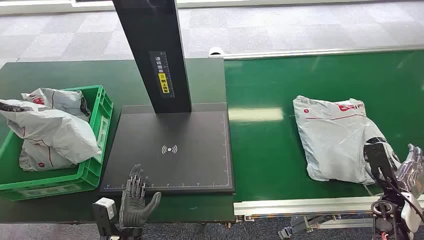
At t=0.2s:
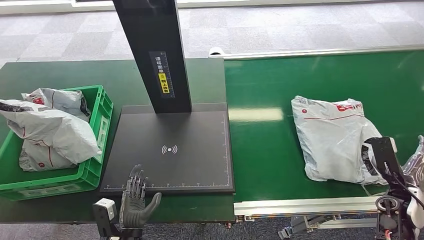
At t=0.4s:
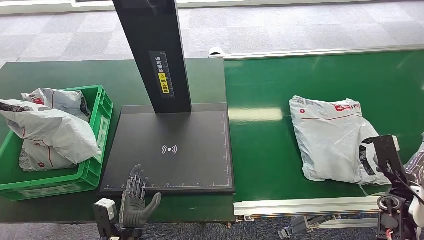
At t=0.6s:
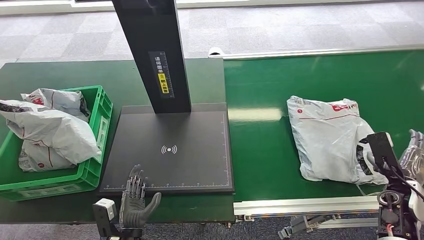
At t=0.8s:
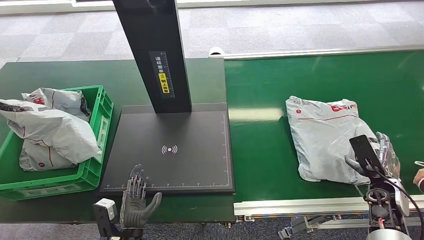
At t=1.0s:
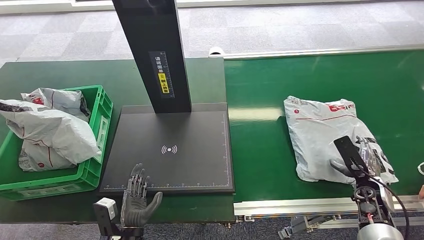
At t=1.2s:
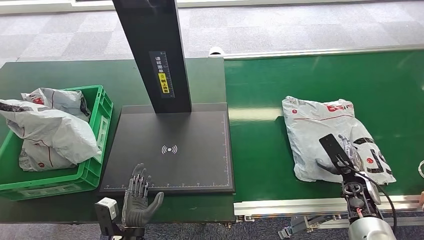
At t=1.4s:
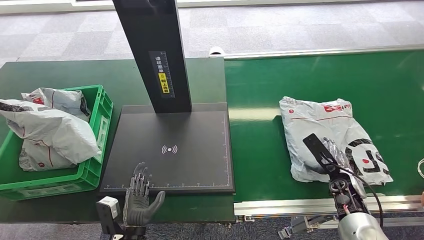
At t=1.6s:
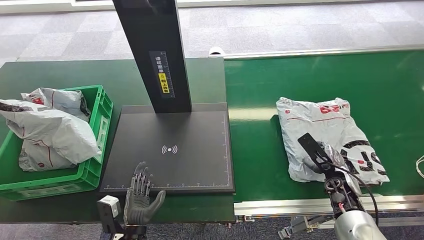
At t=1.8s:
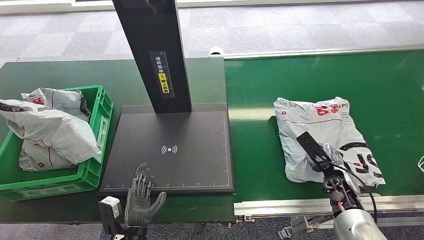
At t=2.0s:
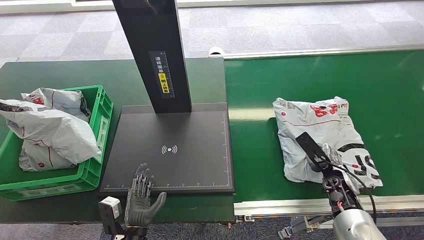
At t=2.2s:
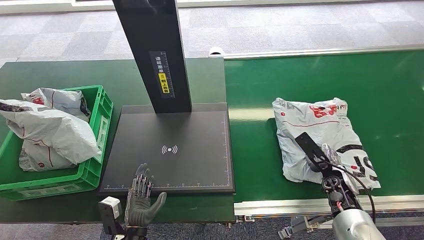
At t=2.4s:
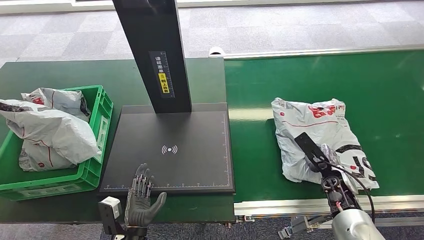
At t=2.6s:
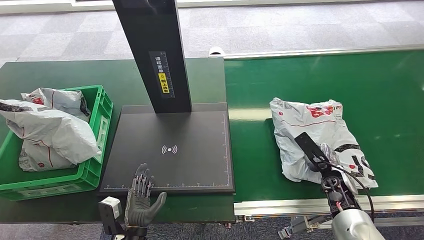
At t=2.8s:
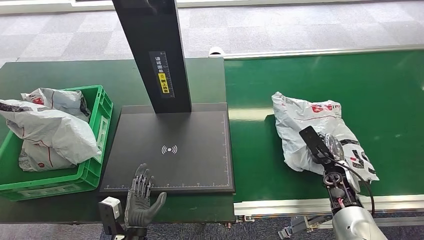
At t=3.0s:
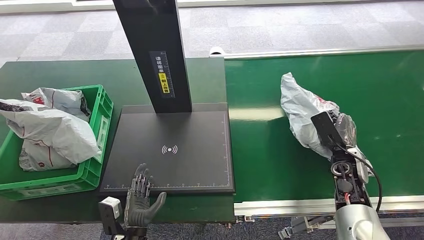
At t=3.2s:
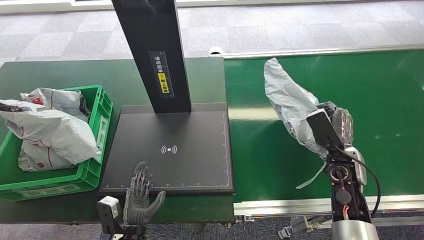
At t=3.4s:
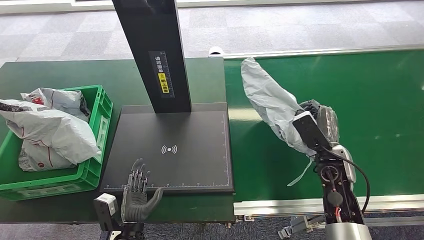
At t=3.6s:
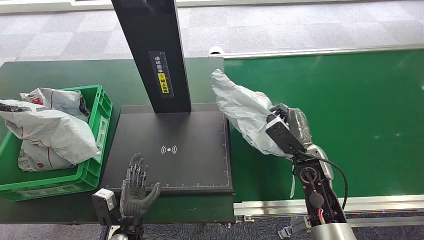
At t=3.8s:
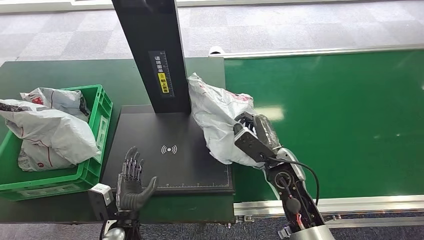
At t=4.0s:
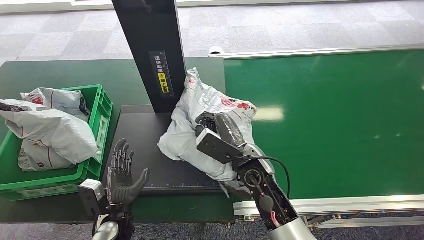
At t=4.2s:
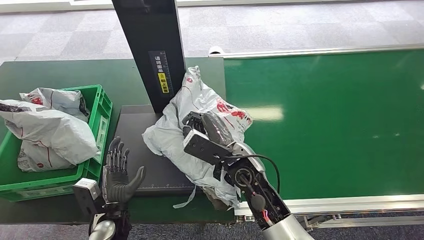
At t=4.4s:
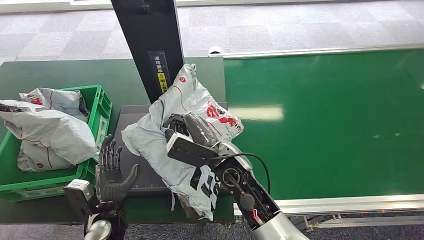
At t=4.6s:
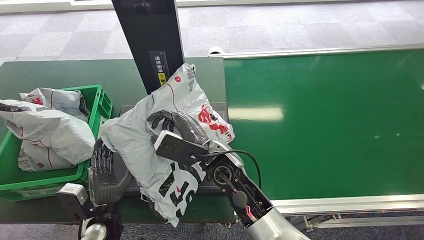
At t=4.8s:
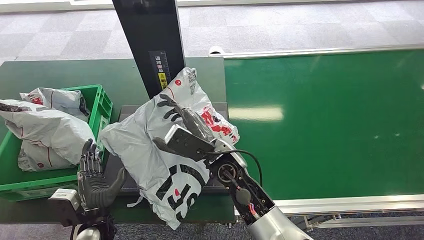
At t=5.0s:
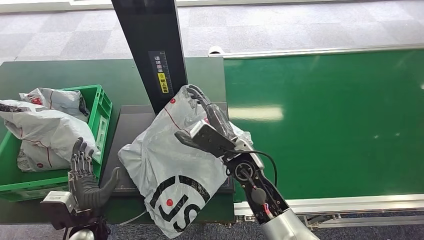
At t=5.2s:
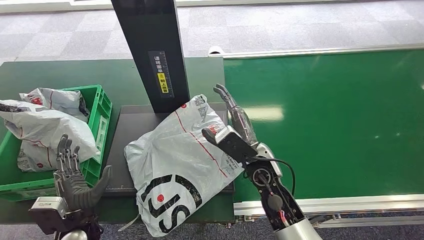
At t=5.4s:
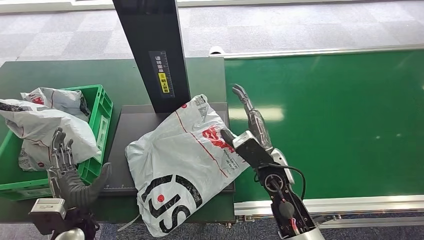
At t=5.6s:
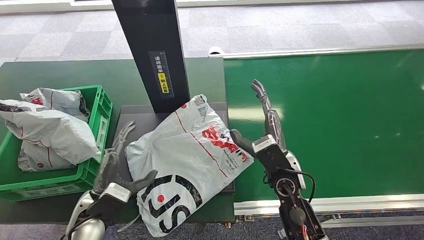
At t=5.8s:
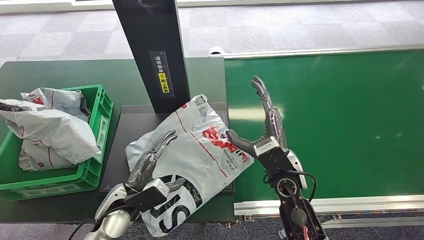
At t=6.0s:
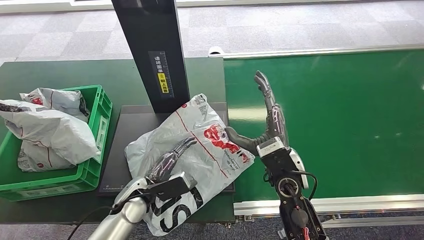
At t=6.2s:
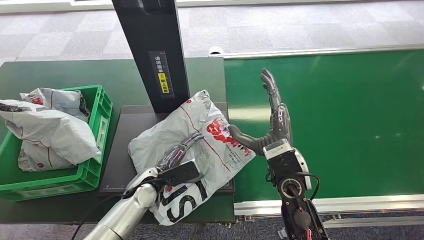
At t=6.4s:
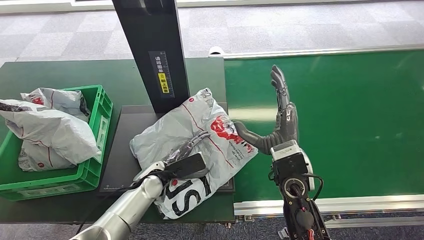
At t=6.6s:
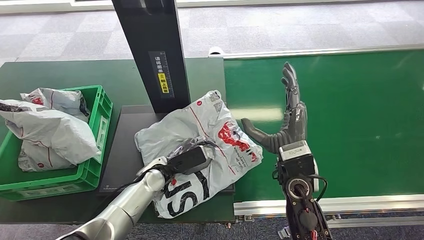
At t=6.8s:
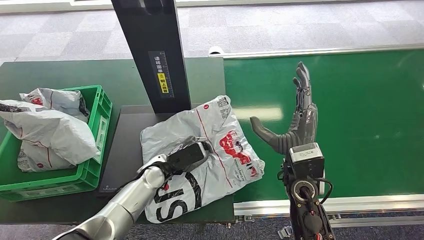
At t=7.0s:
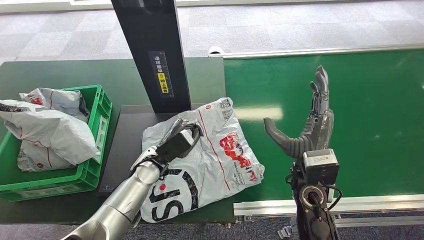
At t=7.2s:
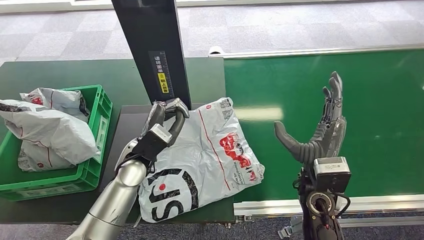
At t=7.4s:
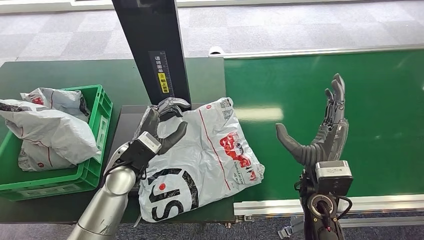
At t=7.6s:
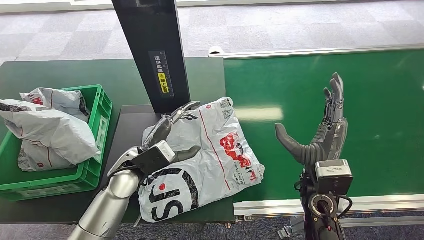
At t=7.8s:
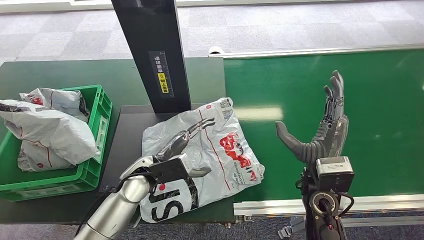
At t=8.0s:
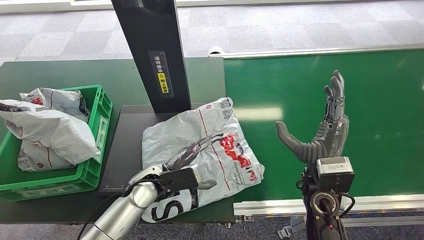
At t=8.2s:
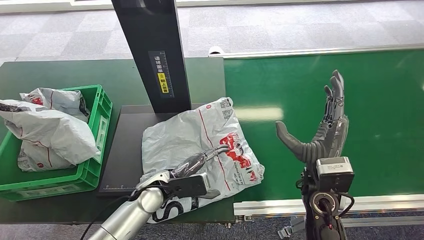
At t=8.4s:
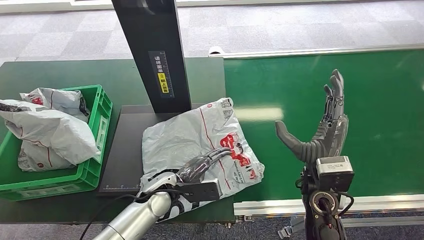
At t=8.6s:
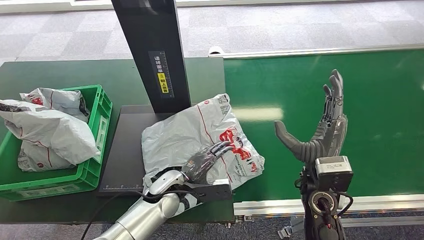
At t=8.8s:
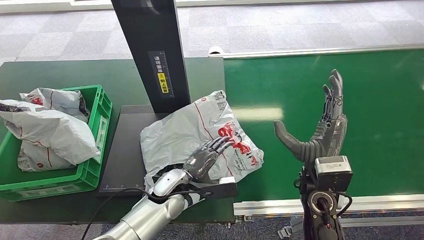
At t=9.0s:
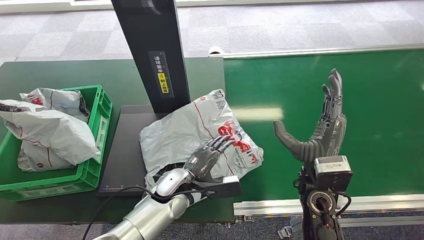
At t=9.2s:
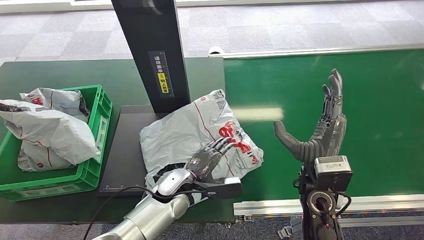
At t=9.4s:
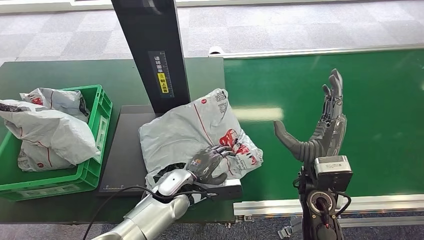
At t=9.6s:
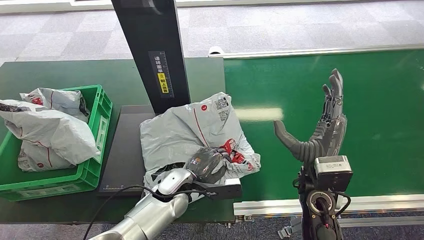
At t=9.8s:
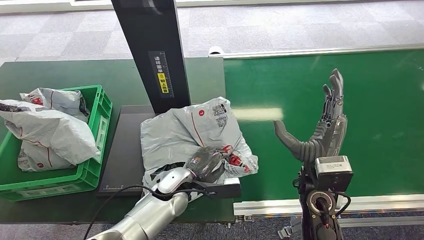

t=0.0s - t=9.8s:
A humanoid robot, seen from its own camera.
Task of the whole recording: Weigh the package on the weighing device and place it in the left basket.
Step, t=0.0s - t=3.2s: Pick up the package from the conveyor belt.
Step, t=3.6s - t=6.4s: Place the package onto the inbound machine.
t=1.4s - t=2.8s: There are only small adjustments of the hands.
t=4.2s - t=5.6s: The left hand goes some 10 cm upward. The right hand travels to the right by about 10 cm.
t=5.6s - t=7.0s: The left hand moves forward and to the right, roughly 15 cm. Meanwhile the right hand shifts by some 5 cm.
t=7.0s - t=8.4s: The left hand travels backward by about 5 cm.

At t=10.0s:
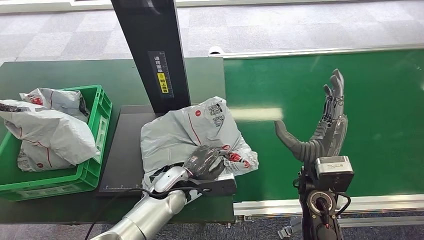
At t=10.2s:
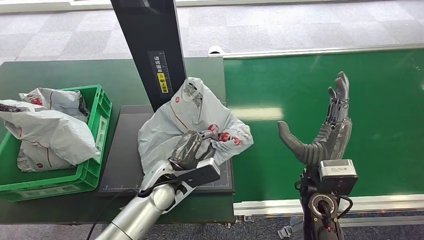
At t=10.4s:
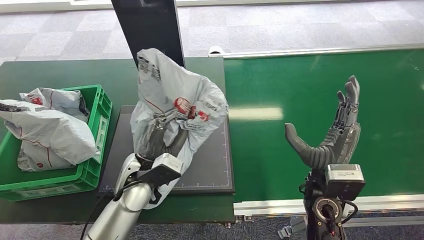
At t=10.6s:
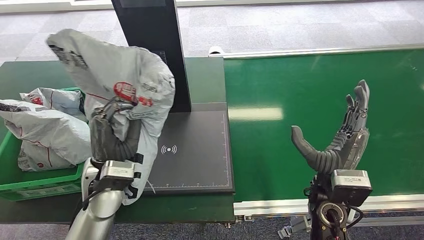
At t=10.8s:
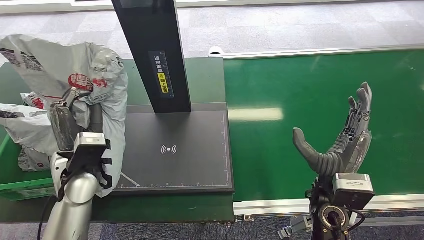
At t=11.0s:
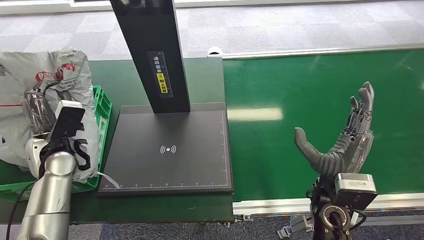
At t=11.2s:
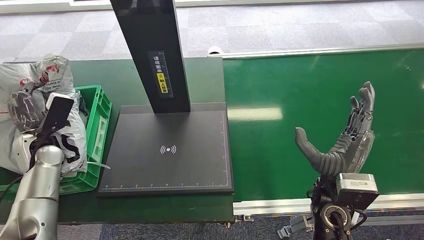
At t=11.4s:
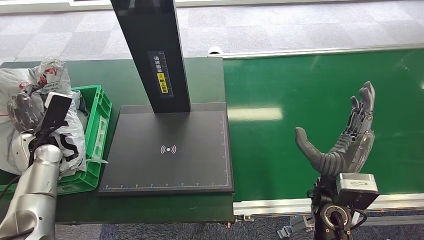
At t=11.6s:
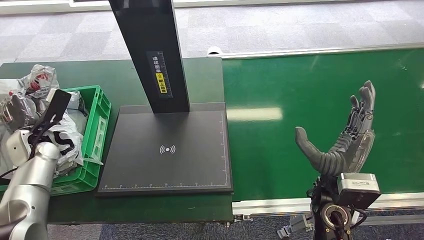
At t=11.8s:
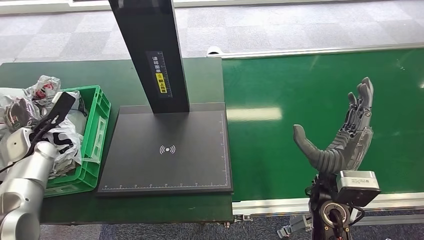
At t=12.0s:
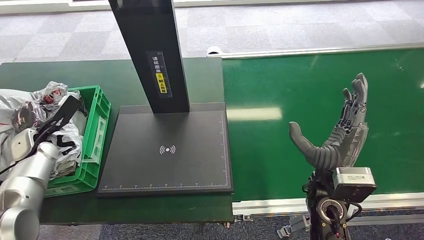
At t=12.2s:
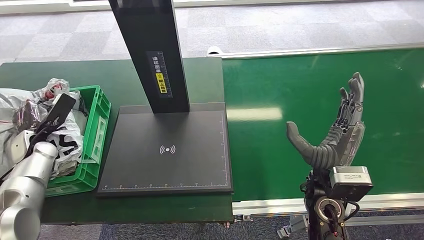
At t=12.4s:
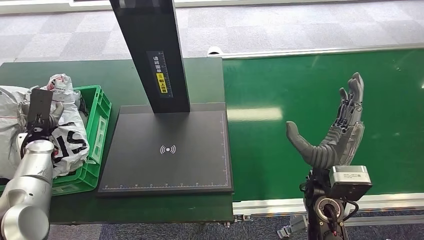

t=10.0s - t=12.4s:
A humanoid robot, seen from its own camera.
Task of the whole recording: Weigh the package on the weighing device and place it in the left basket.
Step, t=10.8s - t=12.4s: Place the package into the parcel locker.
t=11.2s - t=12.4s: The left hand ends up some 5 cm from where it was.
